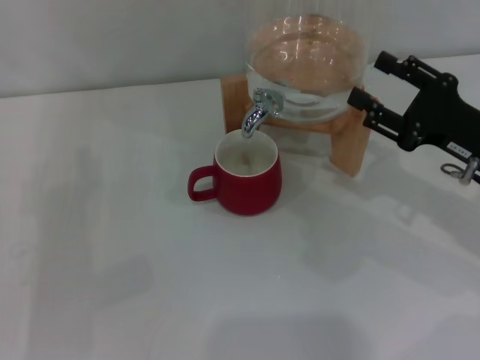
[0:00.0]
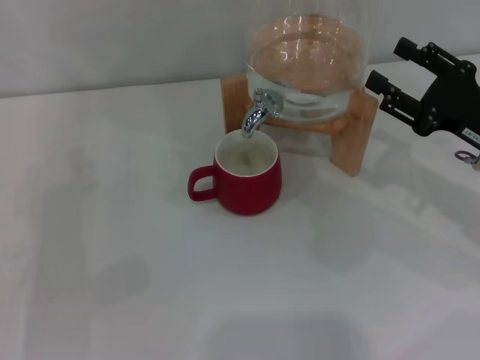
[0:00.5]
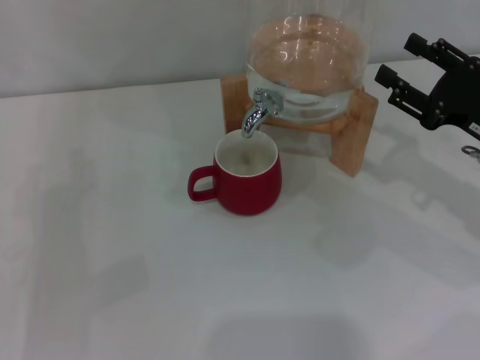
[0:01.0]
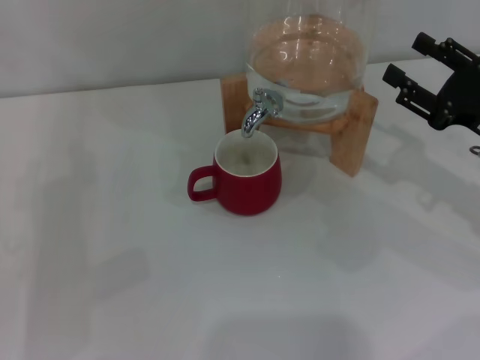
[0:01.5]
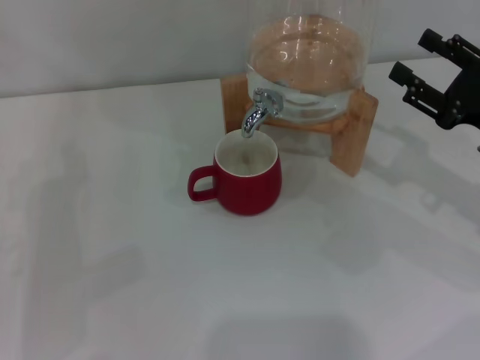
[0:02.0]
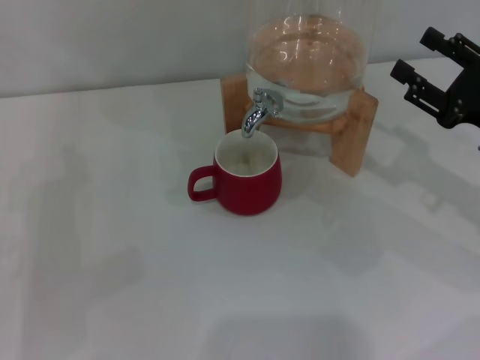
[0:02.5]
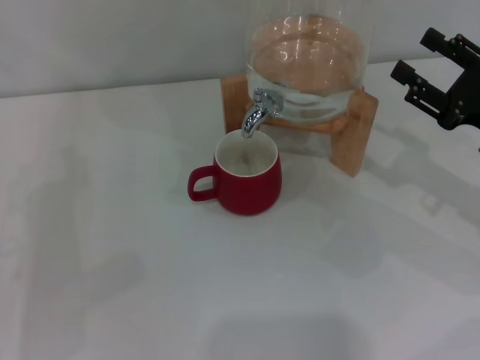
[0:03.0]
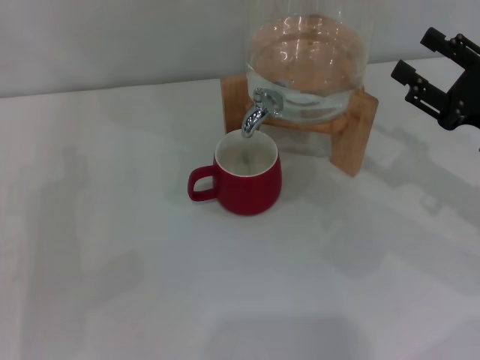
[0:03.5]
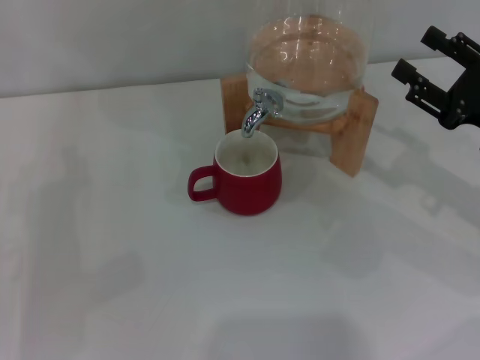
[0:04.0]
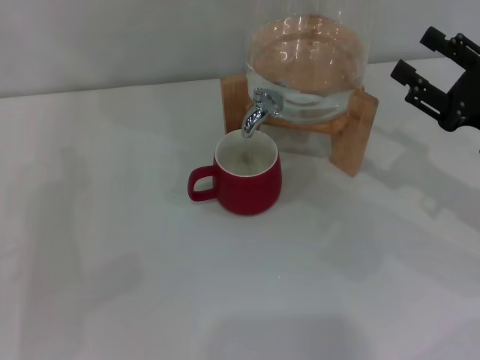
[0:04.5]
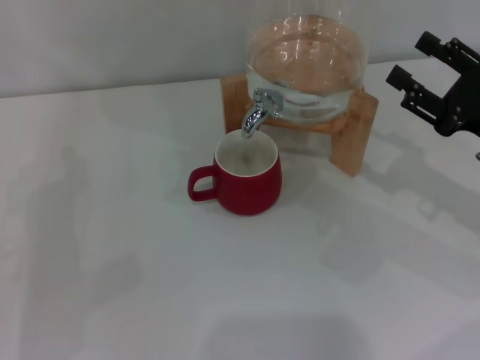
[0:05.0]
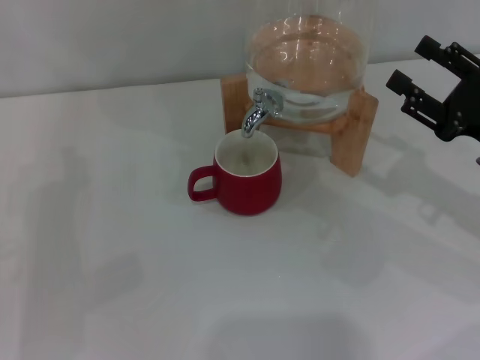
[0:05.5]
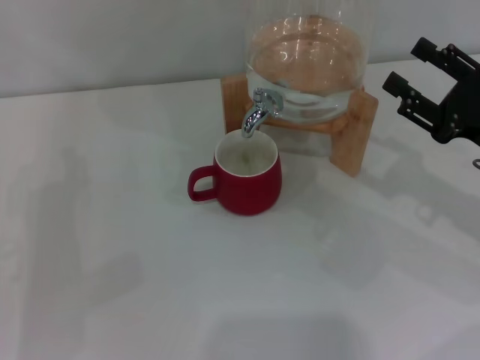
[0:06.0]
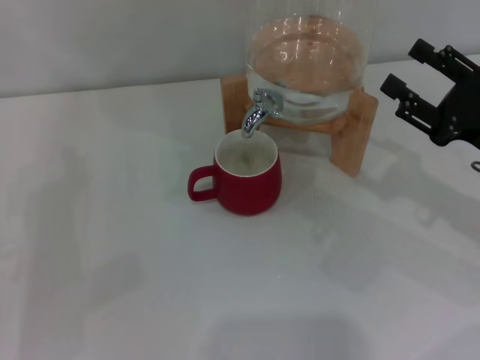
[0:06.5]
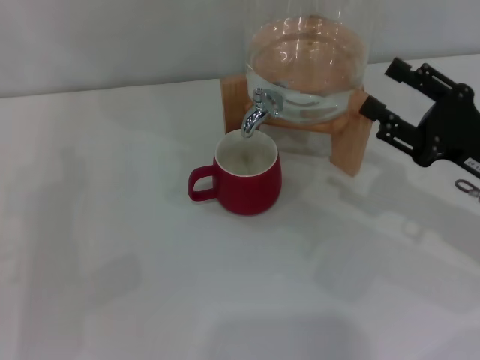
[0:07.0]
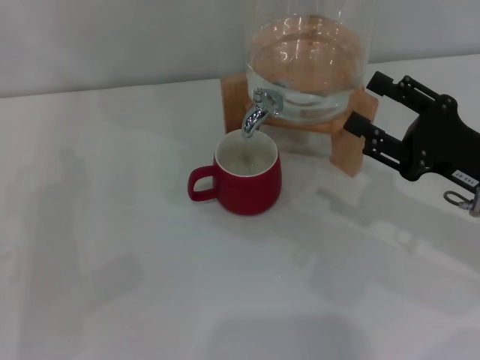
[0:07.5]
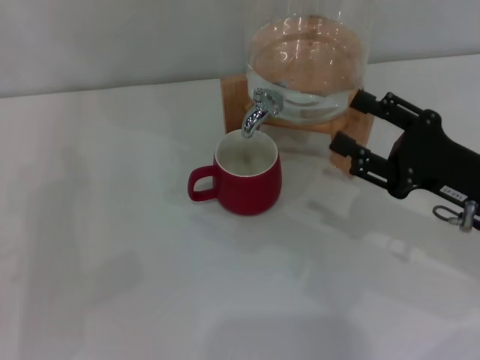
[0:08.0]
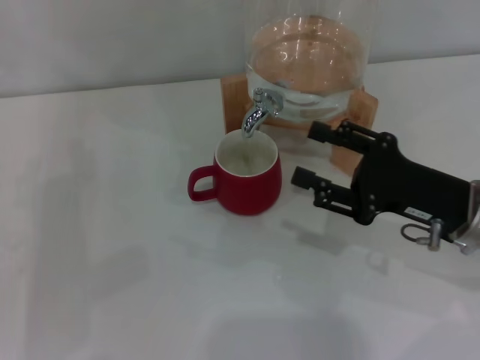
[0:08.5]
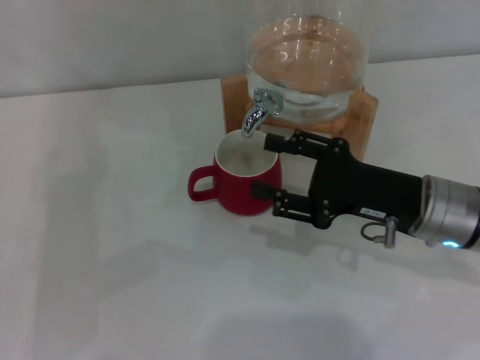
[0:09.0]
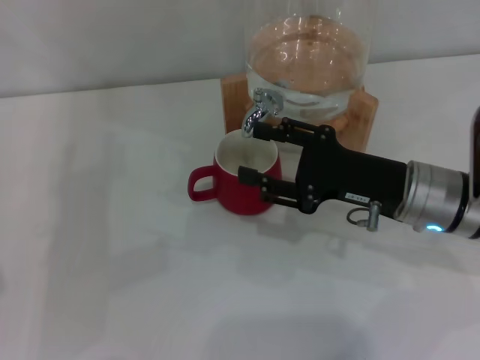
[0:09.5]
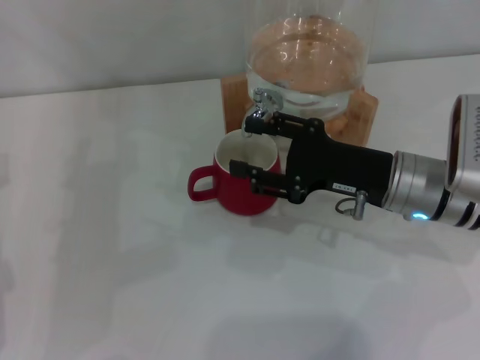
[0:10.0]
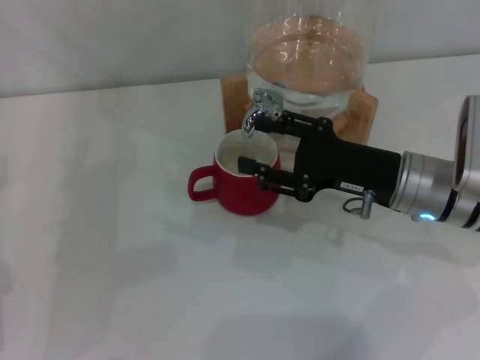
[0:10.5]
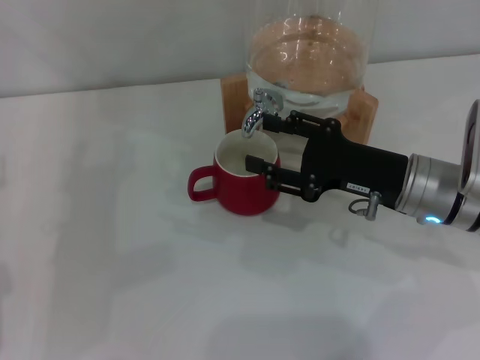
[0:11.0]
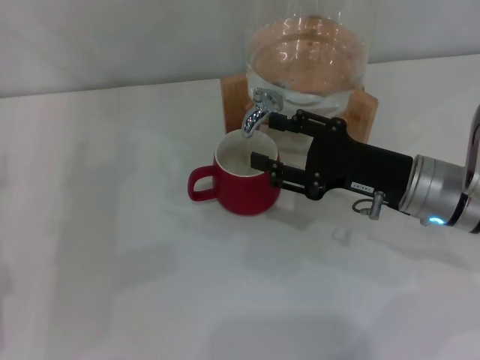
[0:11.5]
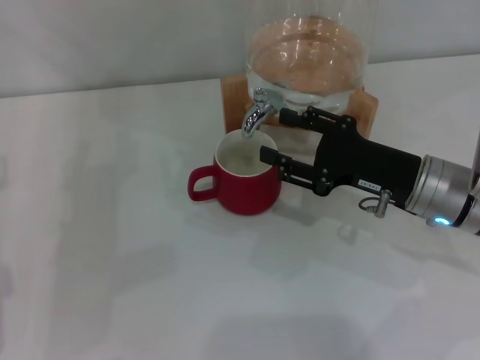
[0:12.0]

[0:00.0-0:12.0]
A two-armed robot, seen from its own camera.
Task of the whole recording: the left gripper pick up the red cup and place it horizontally under the faucet, the right gripper turn on the faucet to fill the cup, and then turn off the faucet.
Step, 0:00.0 to 0:10.0: Open the dispenser valve and fill the cup with water with the right gripper.
0:00.0 to 0:02.0: There are only small adjustments of the grippers.
0:02.0 to 0:04.0: Both grippers stay about where they are.
0:04.0 to 0:06.0: Both grippers stay about where they are.
0:06.0 to 0:08.0: The grippers make only small movements.
0:08.0 to 0:10.0: The right gripper shifts roughly 10 cm to the left and forward.
0:10.0 to 0:12.0: There are only small adjustments of the grippers.

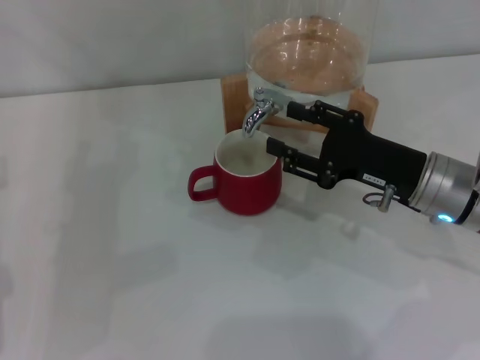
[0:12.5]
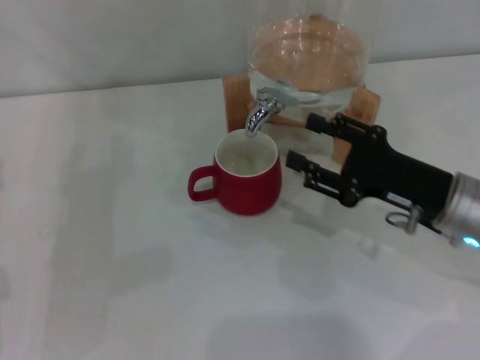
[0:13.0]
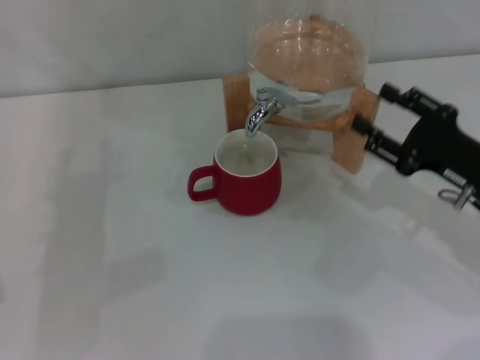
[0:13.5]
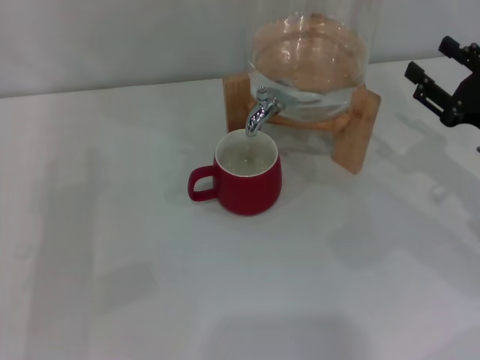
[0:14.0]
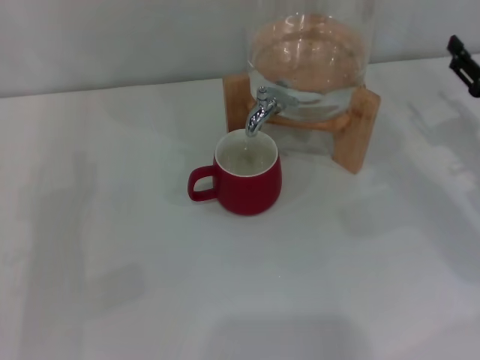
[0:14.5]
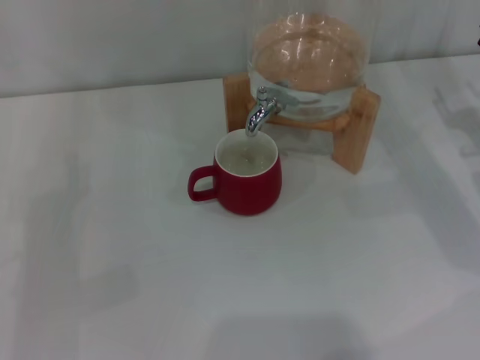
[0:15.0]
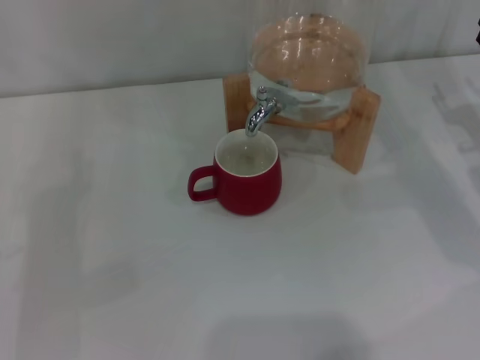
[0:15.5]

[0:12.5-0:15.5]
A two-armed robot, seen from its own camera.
Task of the whole recording: the left gripper pick up the red cup and place it horizontally under the faucet, the right gripper turn on the faucet to fill the cup, and then turn off the faucet.
0:12.5 to 0:14.0: The right gripper moves to the right, some 10 cm.
0:14.0 to 0:15.5: The right gripper shifts by roughly 5 cm.
